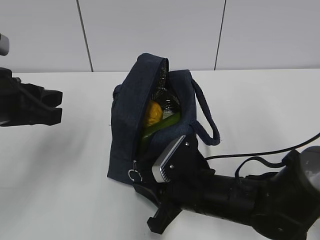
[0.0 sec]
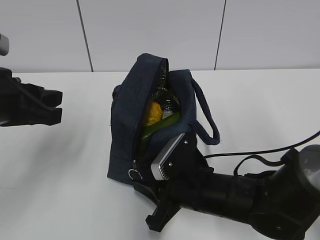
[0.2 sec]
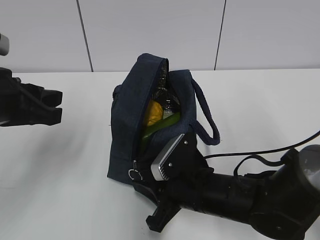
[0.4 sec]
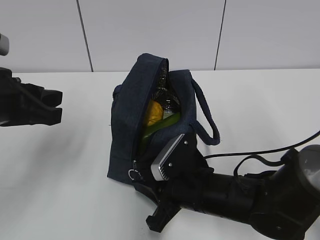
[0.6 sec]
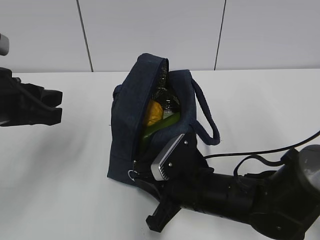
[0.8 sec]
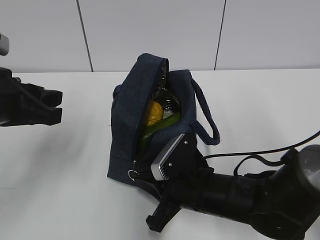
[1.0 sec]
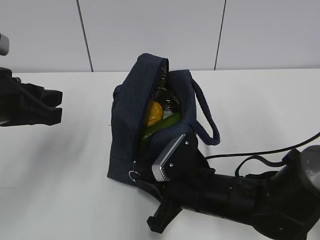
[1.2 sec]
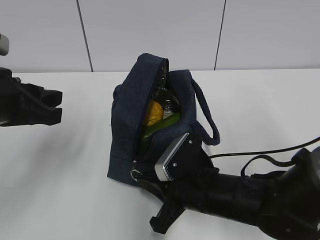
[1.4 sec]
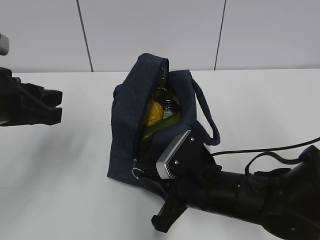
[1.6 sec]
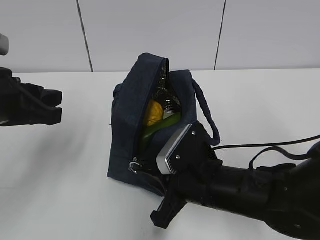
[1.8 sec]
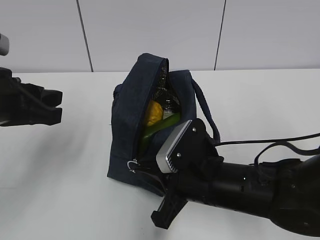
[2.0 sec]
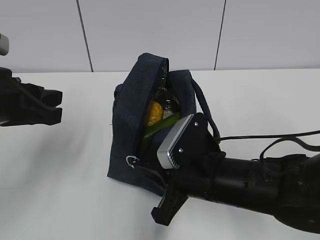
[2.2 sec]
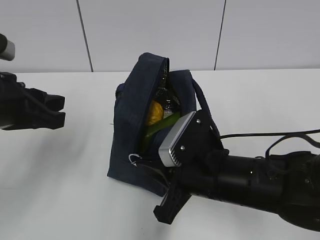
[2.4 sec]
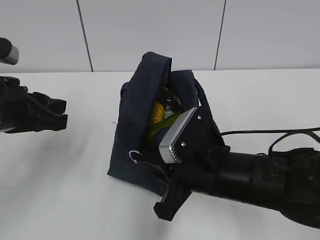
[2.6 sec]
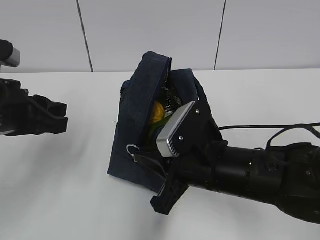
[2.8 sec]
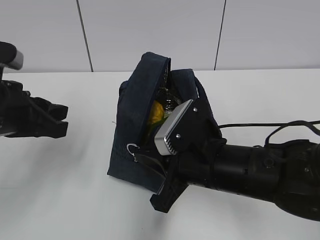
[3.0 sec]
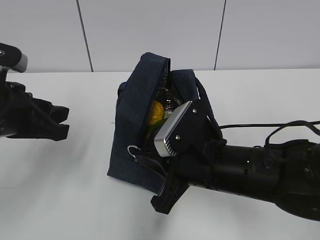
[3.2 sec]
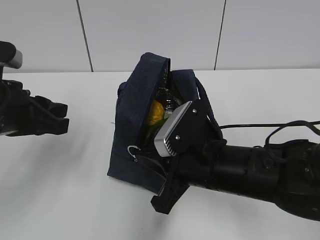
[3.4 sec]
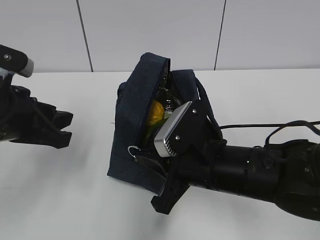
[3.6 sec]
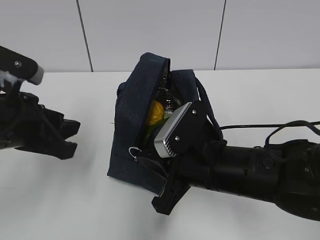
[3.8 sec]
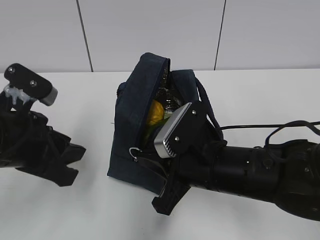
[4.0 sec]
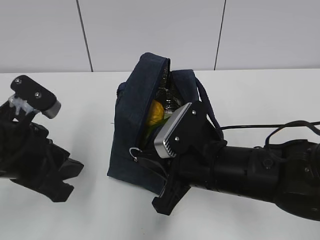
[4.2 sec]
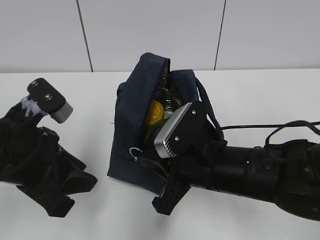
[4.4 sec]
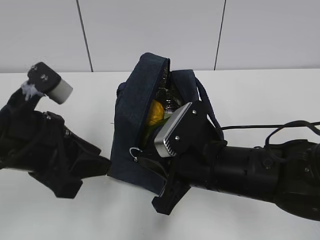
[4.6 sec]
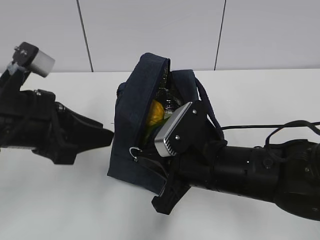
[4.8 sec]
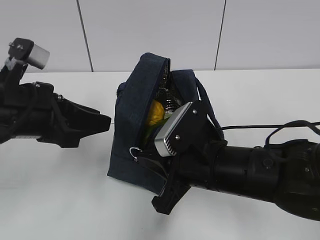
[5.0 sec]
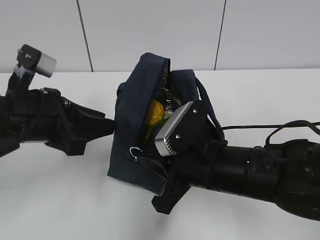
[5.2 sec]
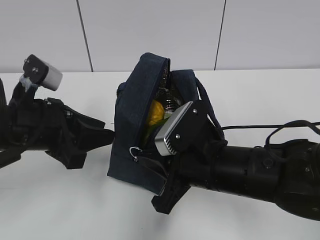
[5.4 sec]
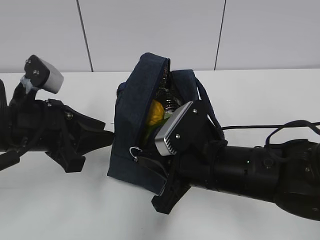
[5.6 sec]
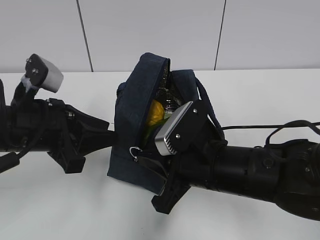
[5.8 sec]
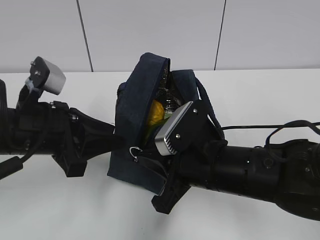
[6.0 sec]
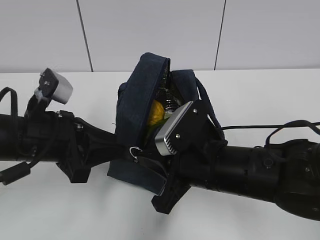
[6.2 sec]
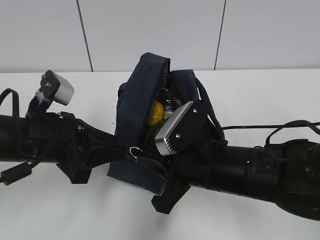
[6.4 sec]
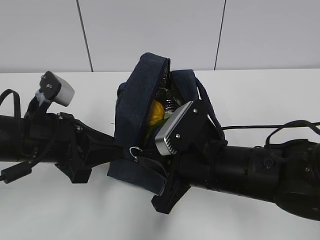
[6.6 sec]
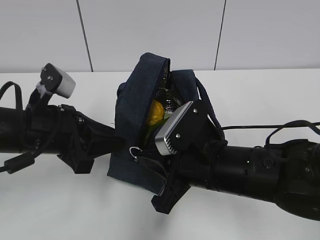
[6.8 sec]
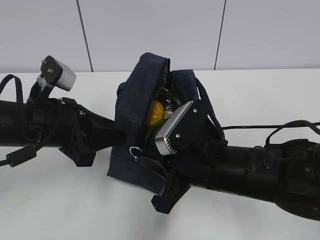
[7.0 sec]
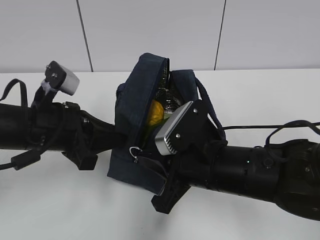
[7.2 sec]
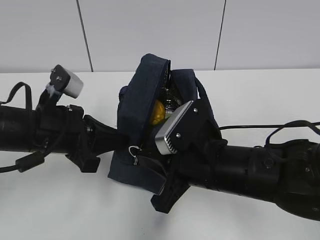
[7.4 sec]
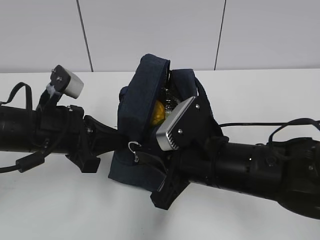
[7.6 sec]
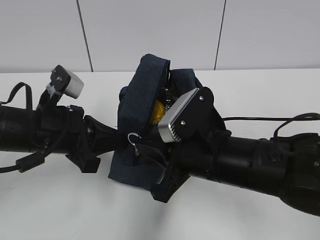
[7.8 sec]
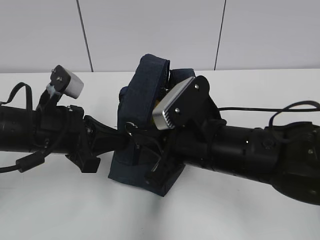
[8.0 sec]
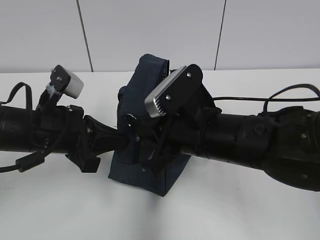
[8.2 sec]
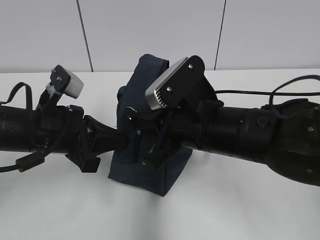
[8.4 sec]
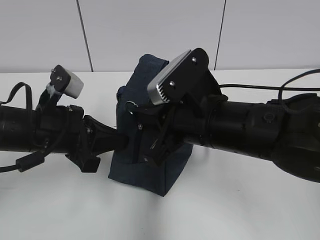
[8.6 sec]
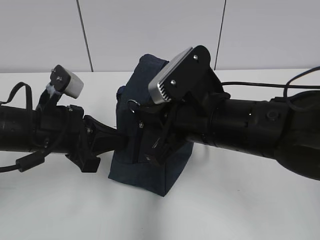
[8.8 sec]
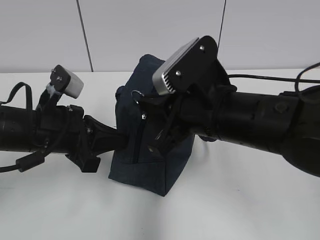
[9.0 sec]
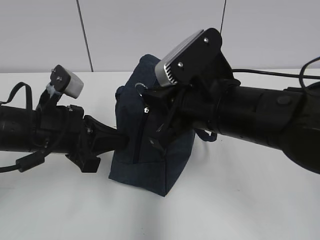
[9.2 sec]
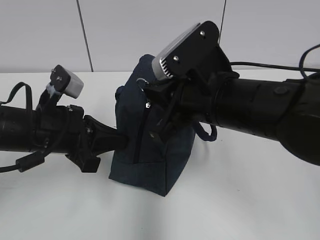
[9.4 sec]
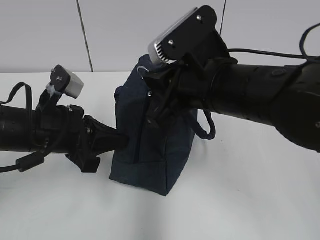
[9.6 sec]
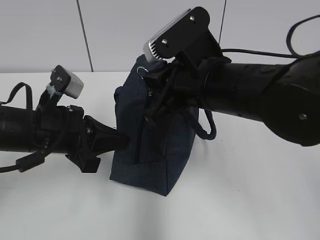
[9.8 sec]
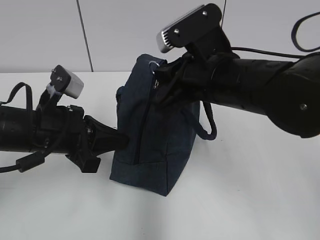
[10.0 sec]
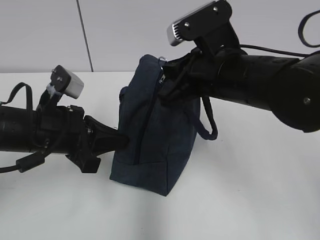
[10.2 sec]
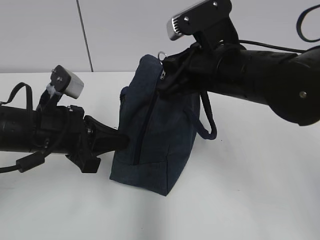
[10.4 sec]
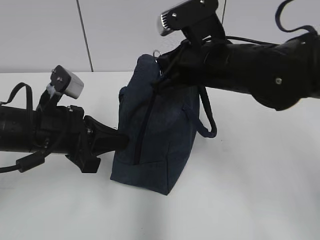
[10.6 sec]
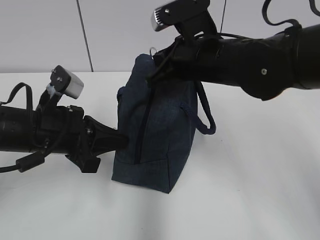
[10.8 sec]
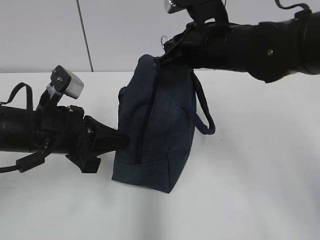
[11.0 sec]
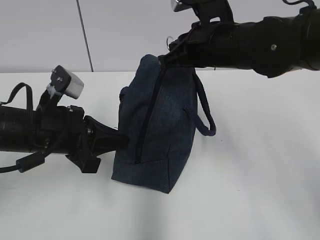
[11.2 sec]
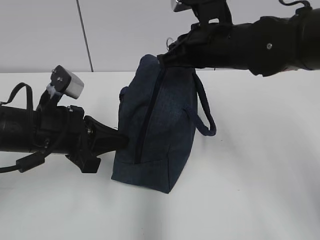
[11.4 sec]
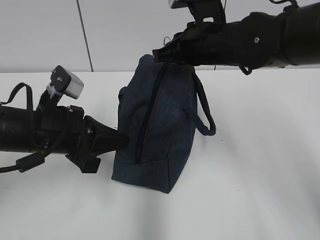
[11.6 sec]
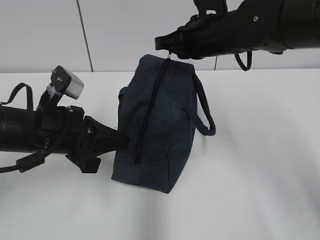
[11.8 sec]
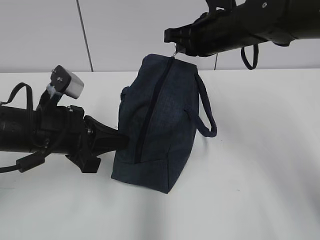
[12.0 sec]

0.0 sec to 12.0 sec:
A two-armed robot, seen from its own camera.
Step, 0.0 sec to 7.8 sec: Grab the lunch bag with your left hand.
0.0 sec to 1.6 sec: The right gripper closes up.
1.6 sec to 3.0 sec: The right gripper moves upward, some 5 cm.
3.0 sec to 4.4 sec: The left gripper moves about 5 cm.
6.0 sec to 7.6 sec: The left gripper closes up.
7.6 sec to 9.0 sec: The right gripper is displaced upward by approximately 5 cm.
9.0 sec to 10.4 sec: The right gripper travels forward by some 5 cm.
10.4 sec to 12.0 sec: The right gripper goes approximately 10 cm forward.

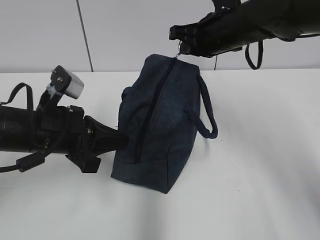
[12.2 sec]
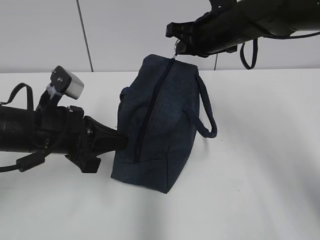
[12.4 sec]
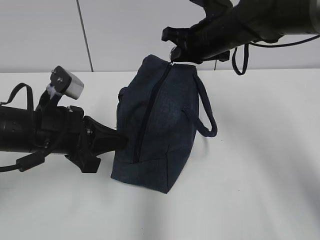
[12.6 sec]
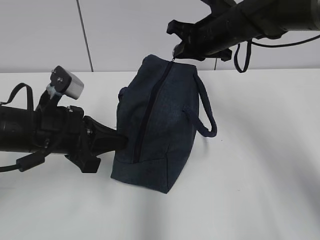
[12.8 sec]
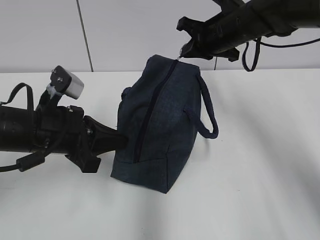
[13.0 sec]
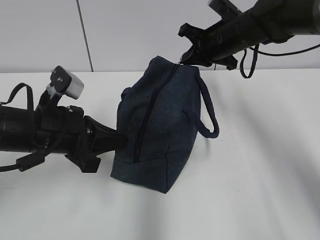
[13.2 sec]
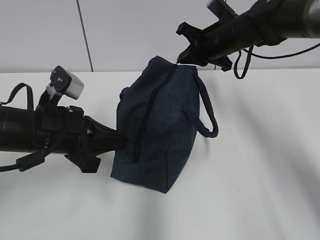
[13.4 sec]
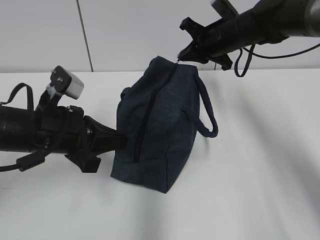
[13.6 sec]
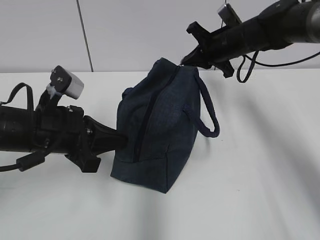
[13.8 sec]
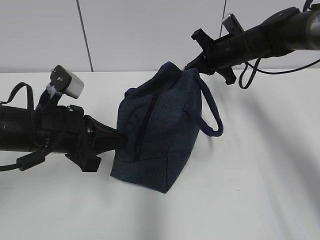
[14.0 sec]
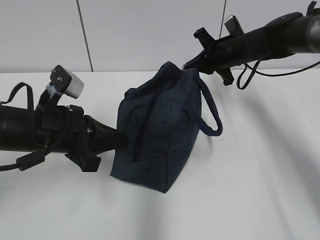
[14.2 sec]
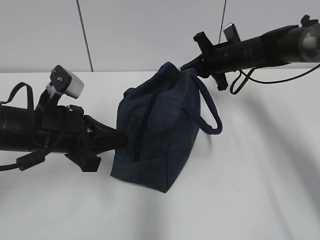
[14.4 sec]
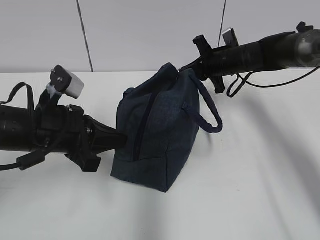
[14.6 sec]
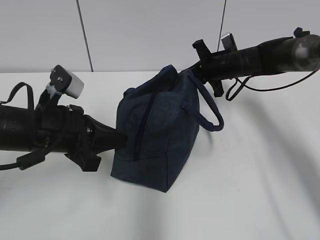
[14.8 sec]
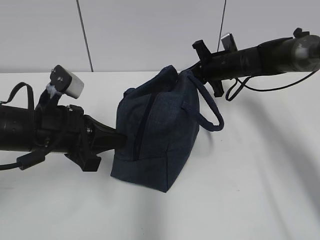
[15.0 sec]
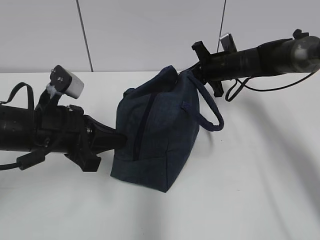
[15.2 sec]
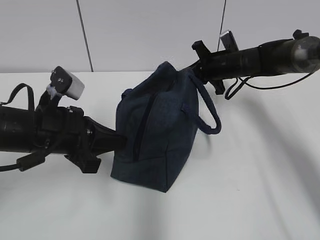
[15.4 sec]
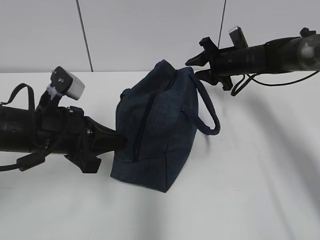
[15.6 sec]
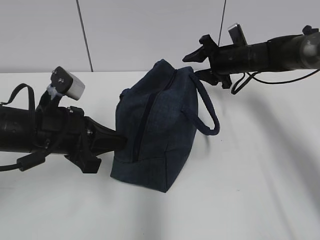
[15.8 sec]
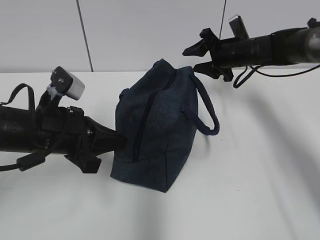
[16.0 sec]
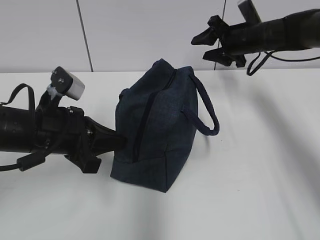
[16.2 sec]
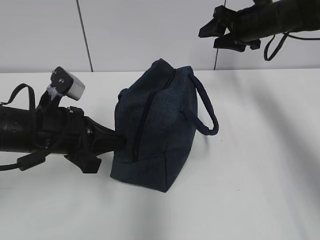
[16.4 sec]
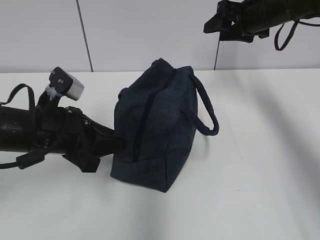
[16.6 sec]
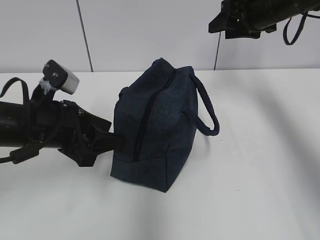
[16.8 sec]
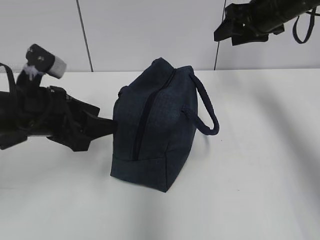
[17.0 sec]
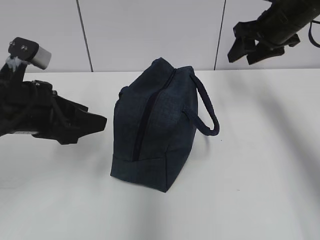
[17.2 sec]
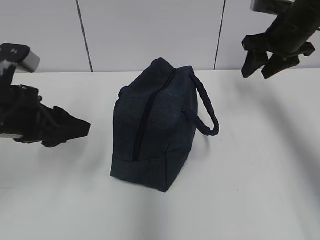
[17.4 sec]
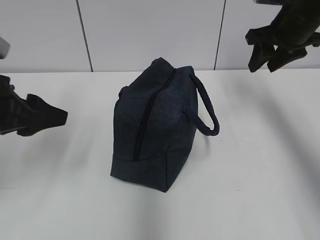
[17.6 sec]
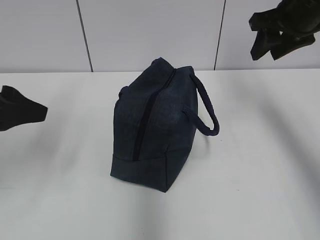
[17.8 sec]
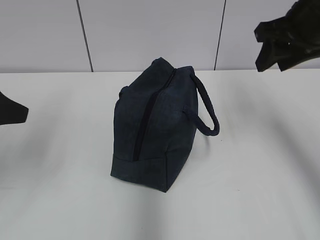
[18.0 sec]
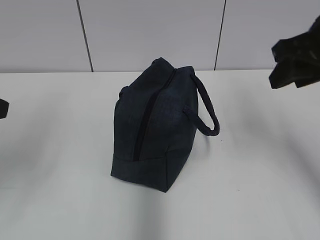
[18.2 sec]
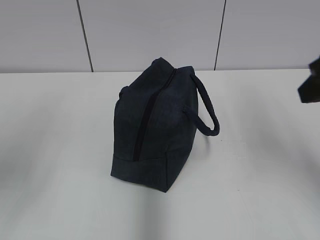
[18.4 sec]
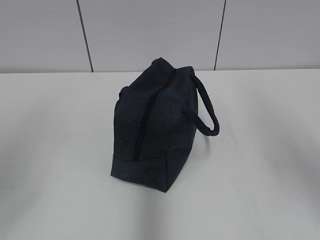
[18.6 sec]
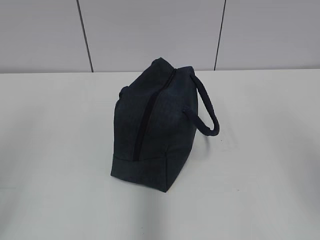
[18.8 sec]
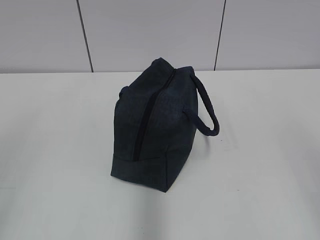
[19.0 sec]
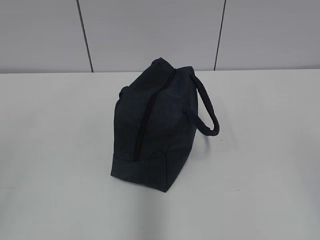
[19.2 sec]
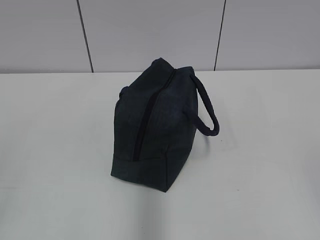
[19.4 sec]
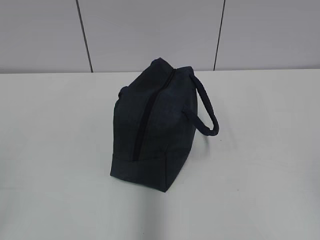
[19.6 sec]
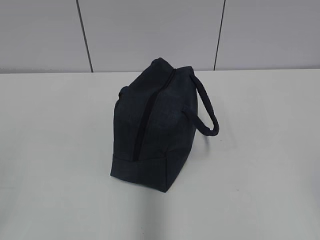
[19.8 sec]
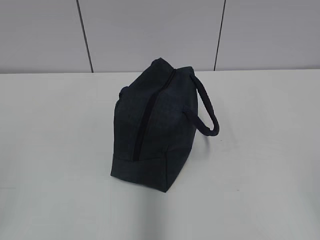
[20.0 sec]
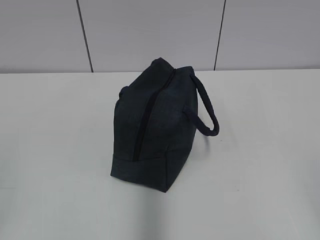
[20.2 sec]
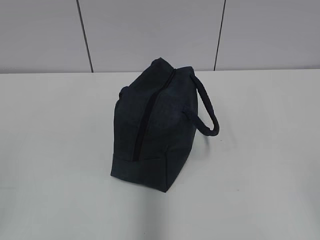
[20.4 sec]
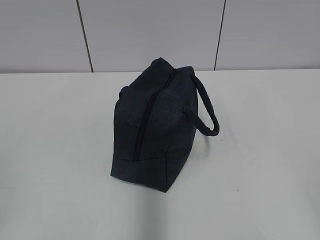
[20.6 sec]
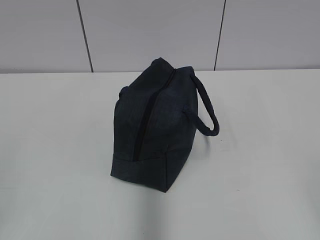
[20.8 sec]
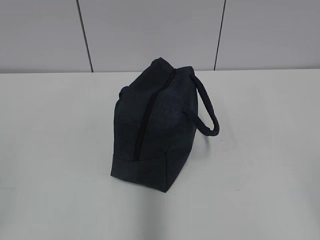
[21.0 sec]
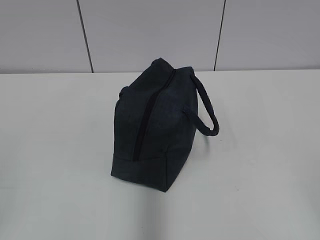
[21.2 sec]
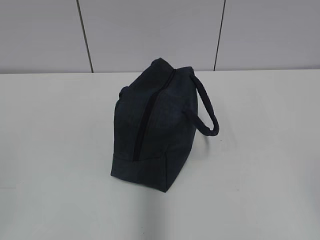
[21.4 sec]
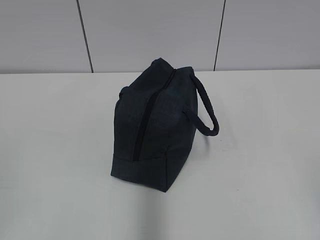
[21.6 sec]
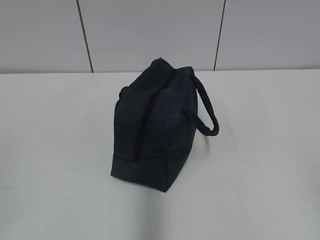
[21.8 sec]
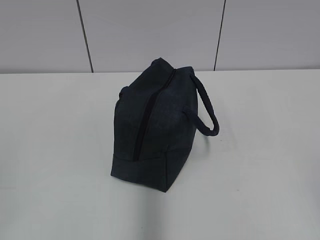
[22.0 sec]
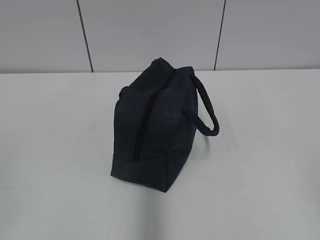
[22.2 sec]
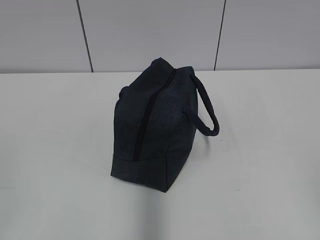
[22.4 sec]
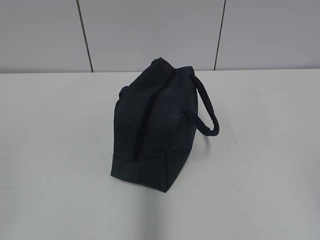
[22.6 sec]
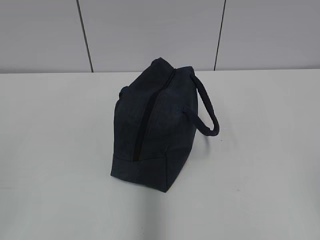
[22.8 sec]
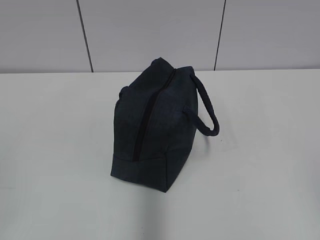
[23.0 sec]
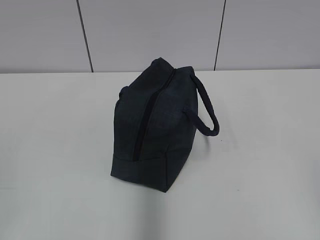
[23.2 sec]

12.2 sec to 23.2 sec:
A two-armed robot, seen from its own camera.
Step, 12.2 sec to 15.6 sec: Pull the zipper with your right hand.
12.2 sec to 13.8 sec: The right gripper moves forward and downward, roughly 10 cm.
13.8 sec to 15.4 sec: The right gripper shifts some 5 cm downward.
15.4 sec to 17.0 sec: The right gripper travels upward and backward by roughly 15 cm, and opens up; the left gripper opens.
17.0 sec to 18.4 sec: The left gripper moves backward, upward and to the left, roughly 20 cm. Meanwhile the right gripper heads backward, covering about 25 cm.
18.4 sec to 20.0 sec: The right gripper travels backward by about 25 cm.
21.6 sec to 23.2 sec: Both grippers stay about where they are.
